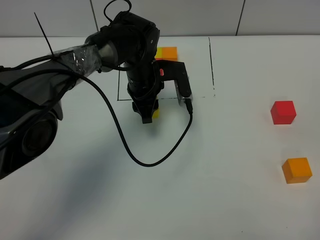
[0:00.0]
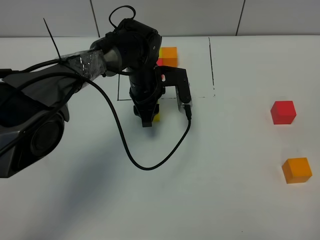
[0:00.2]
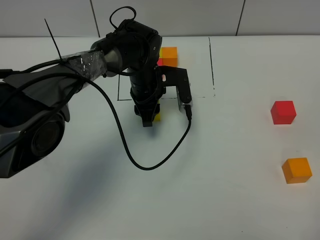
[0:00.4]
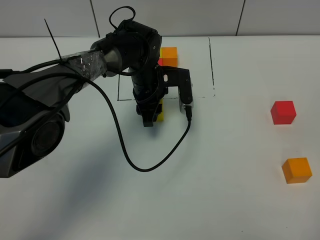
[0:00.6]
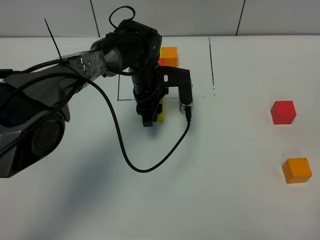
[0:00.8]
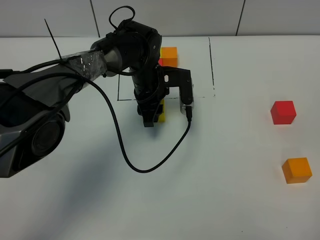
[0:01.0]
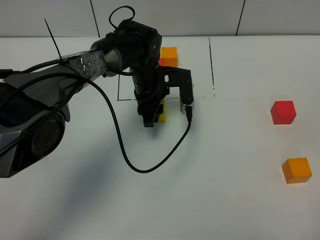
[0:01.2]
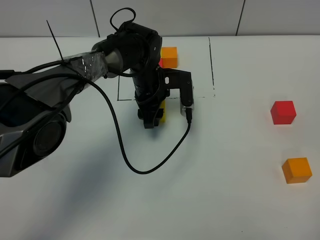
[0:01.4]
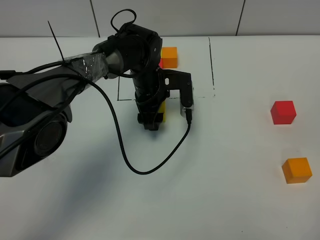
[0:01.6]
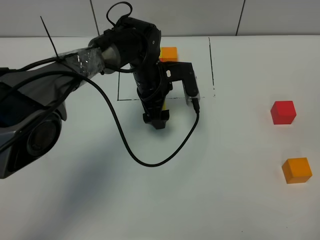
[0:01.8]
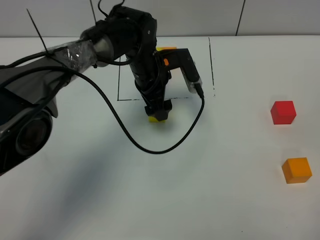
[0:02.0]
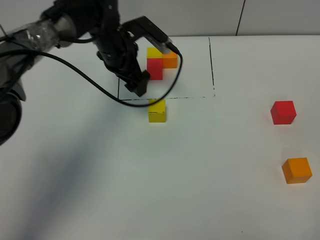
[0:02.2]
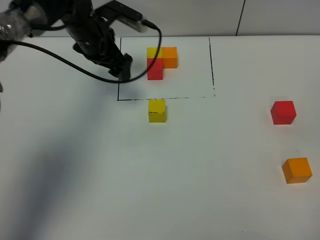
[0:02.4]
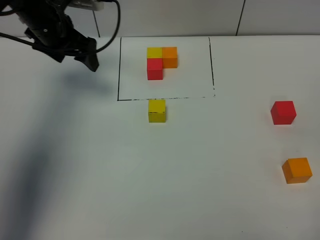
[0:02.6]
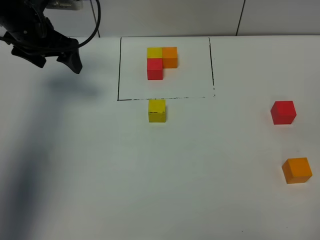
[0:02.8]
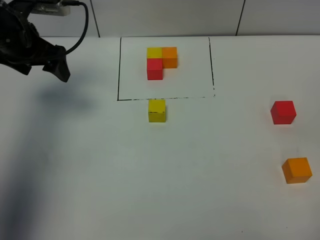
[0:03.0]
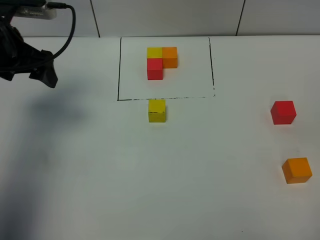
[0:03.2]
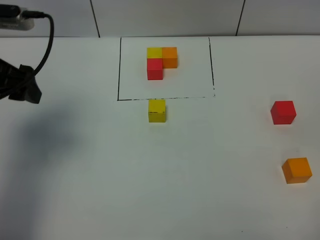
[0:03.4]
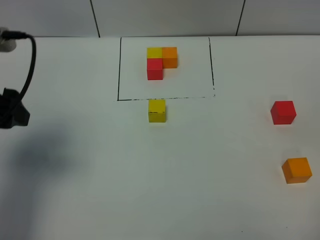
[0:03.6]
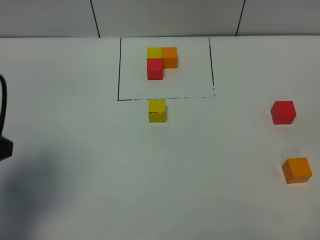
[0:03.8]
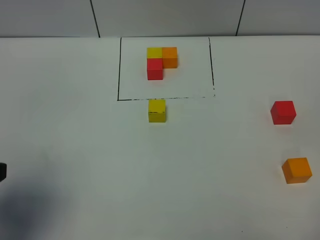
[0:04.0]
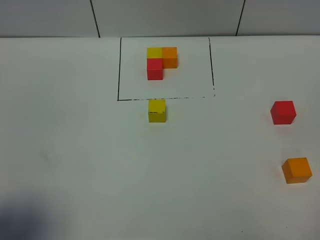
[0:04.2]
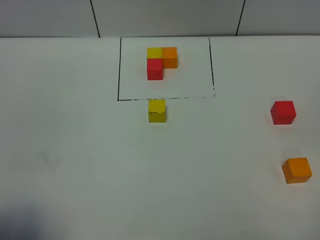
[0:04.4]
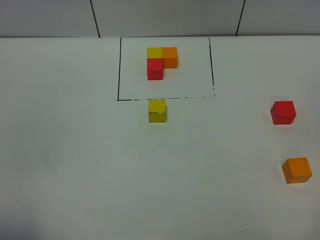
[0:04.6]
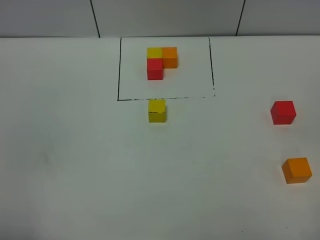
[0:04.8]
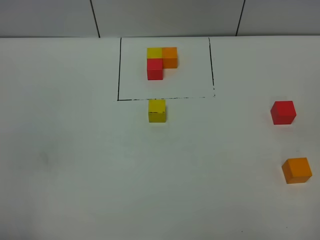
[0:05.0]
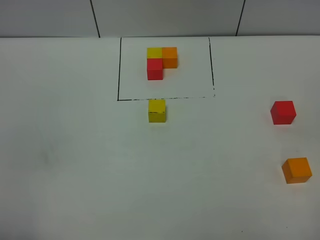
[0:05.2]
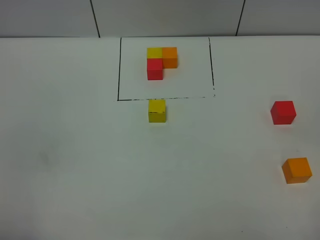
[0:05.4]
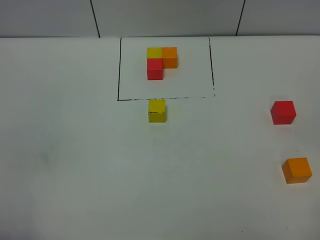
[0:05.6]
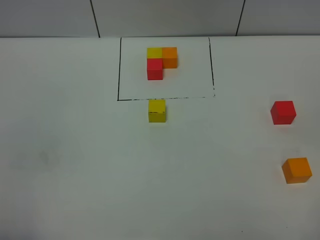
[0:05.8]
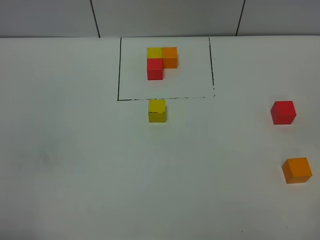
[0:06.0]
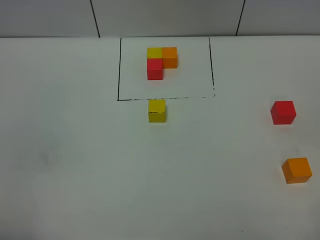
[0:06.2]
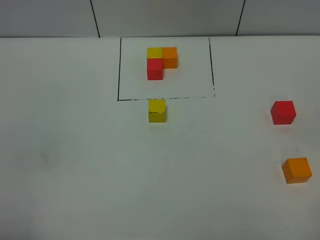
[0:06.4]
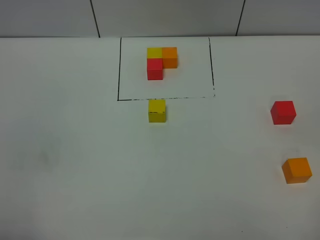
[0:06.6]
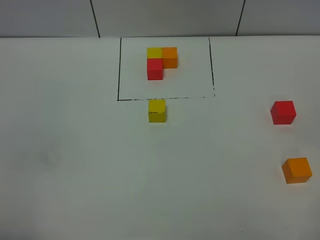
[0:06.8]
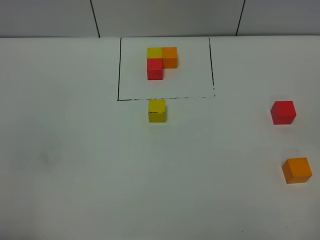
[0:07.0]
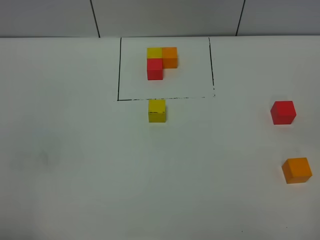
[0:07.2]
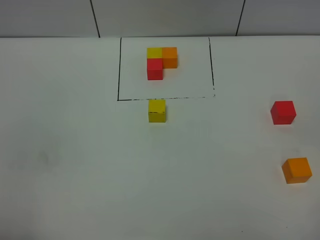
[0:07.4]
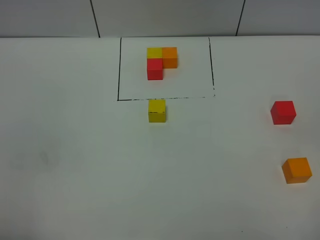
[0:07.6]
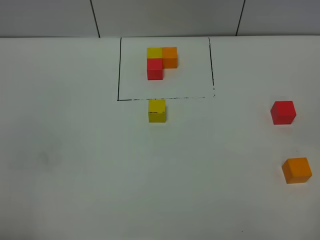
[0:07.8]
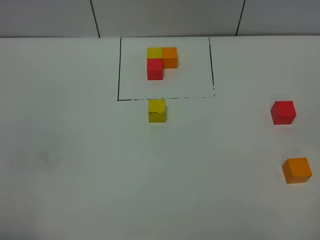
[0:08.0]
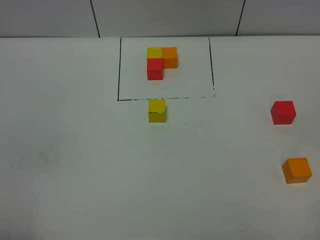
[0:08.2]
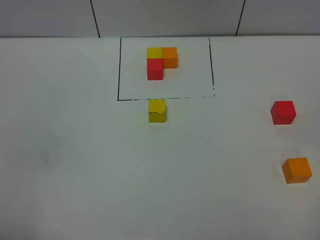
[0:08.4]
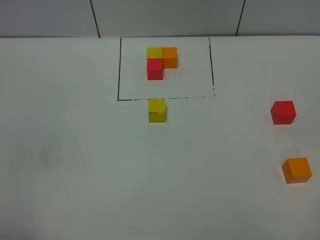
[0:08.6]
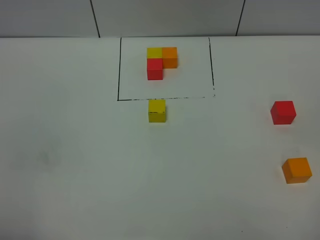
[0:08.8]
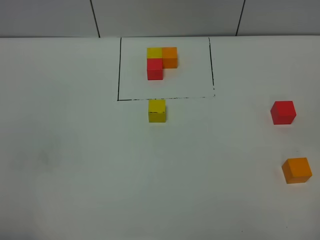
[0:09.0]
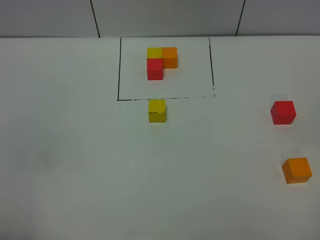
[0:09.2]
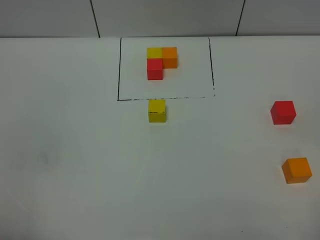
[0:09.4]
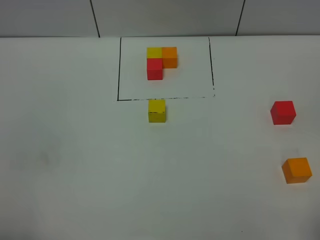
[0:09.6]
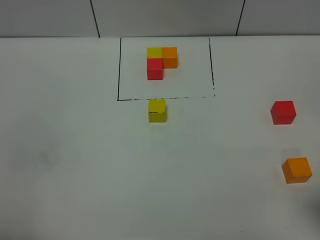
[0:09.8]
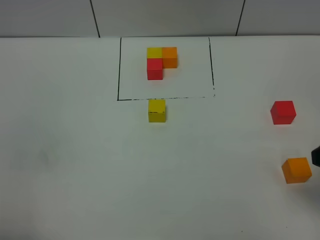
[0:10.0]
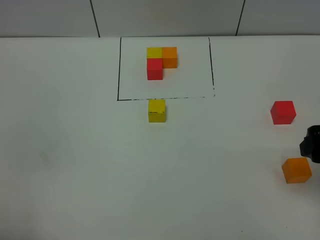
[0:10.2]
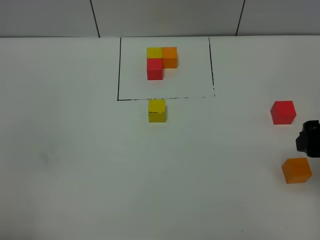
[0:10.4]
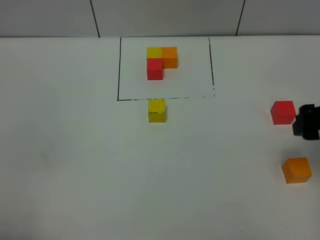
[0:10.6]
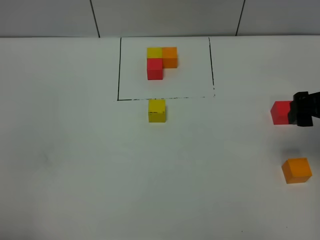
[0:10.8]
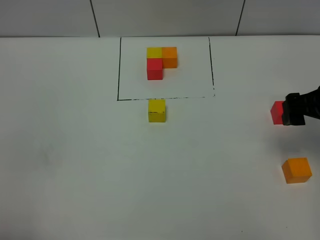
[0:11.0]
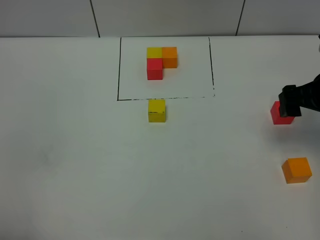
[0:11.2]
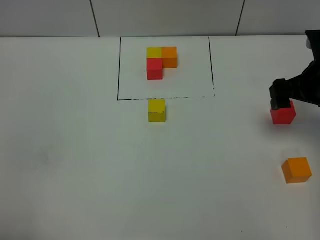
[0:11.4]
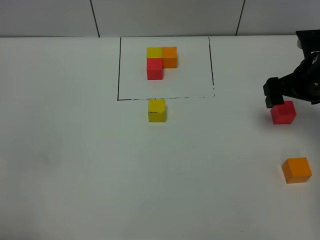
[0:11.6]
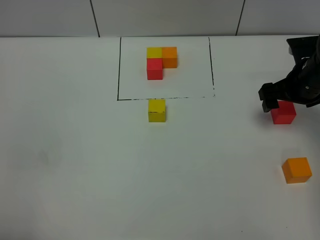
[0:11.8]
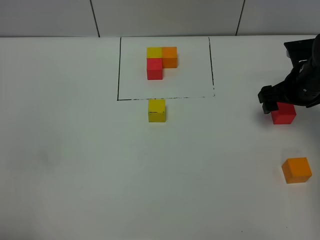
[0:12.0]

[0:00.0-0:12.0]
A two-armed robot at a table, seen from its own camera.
Task of the whole recording: According to the building block template in front, assemble the scattered blocks together.
0:00.0 to 0:01.6: The left gripper opens.
0:01.6 to 0:03.0: The left gripper is displaced to the left and upward by roughly 25 cm.
0:03.0 to 0:04.4: The left gripper heads backward, covering about 35 cm.
0:04.4 to 0:06.0: The left gripper moves backward, some 5 cm.
0:06.0 to 0:09.0: The two grippers keep their place.
0:09.0 to 0:10.4: The right gripper goes roughly 20 cm forward.
0:10.4 to 0:12.0: The right gripper travels forward and downward by approximately 20 cm.

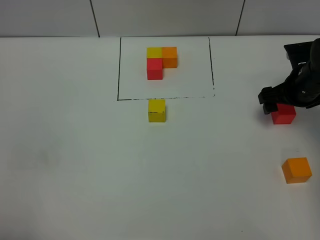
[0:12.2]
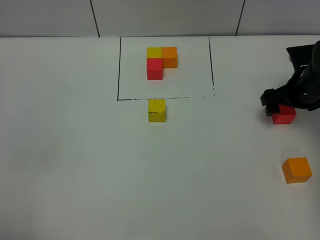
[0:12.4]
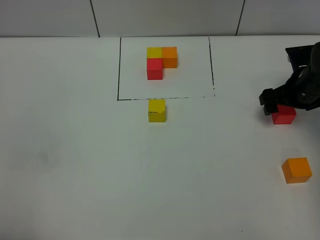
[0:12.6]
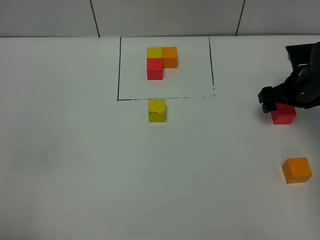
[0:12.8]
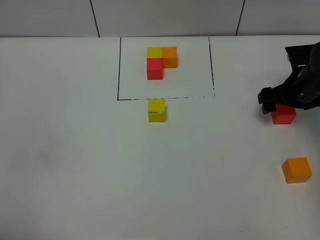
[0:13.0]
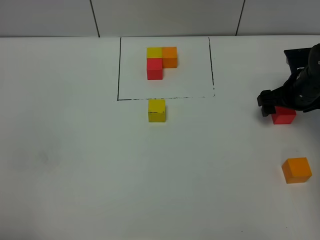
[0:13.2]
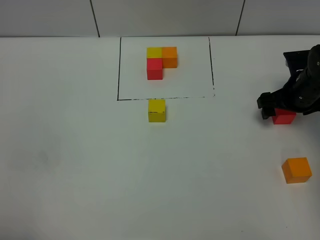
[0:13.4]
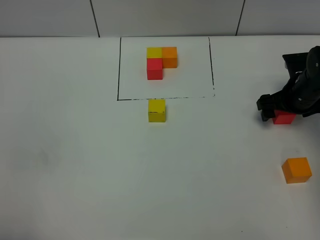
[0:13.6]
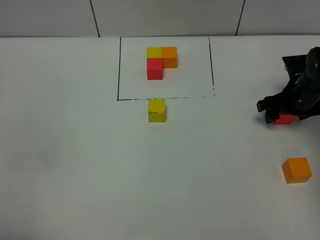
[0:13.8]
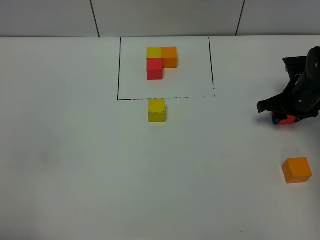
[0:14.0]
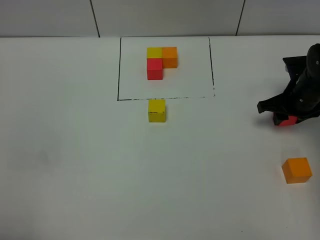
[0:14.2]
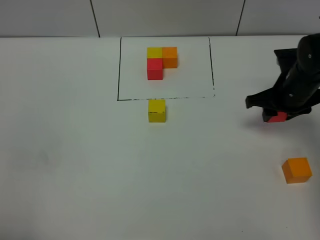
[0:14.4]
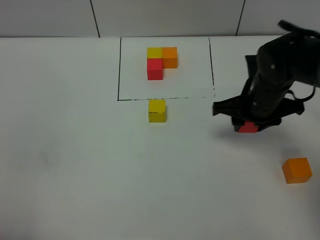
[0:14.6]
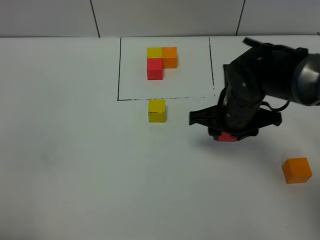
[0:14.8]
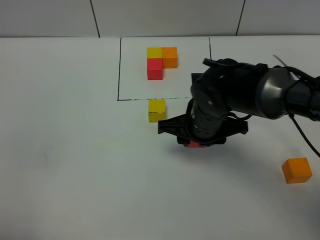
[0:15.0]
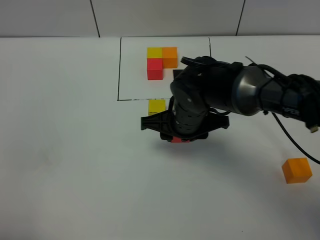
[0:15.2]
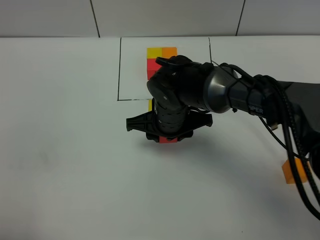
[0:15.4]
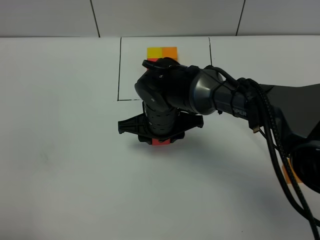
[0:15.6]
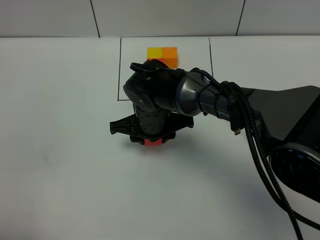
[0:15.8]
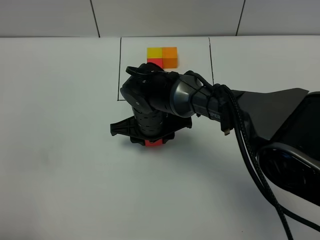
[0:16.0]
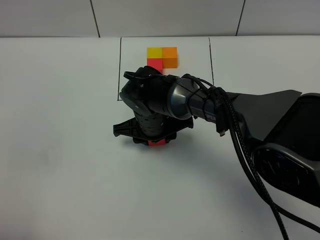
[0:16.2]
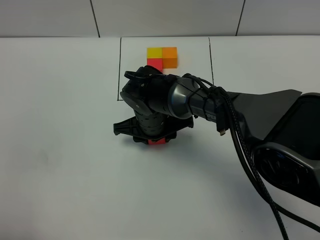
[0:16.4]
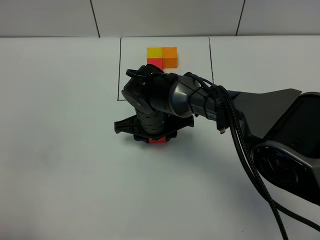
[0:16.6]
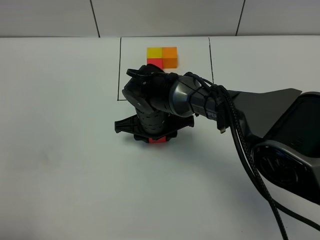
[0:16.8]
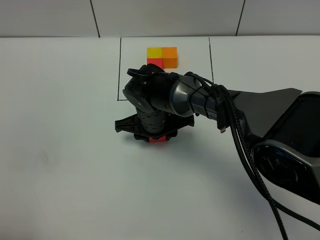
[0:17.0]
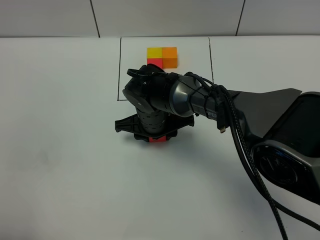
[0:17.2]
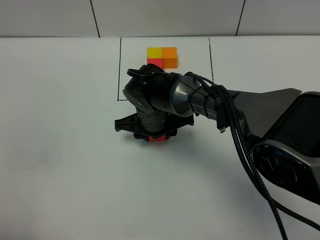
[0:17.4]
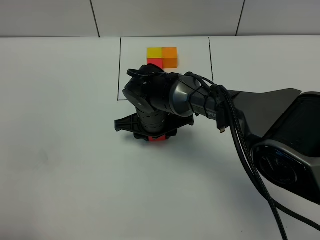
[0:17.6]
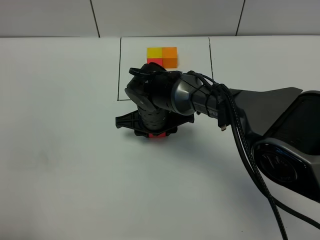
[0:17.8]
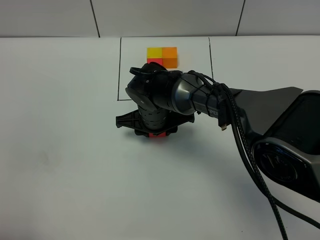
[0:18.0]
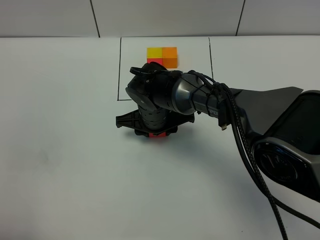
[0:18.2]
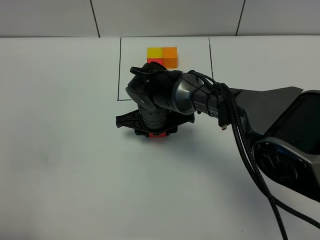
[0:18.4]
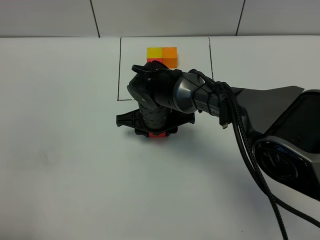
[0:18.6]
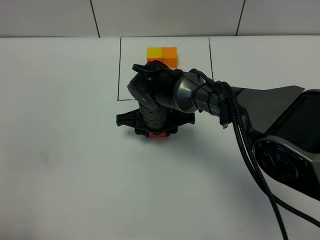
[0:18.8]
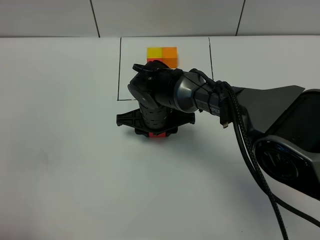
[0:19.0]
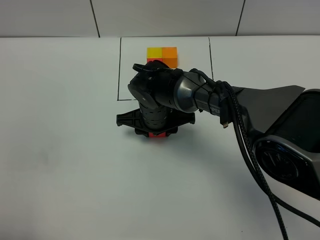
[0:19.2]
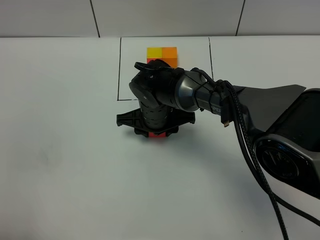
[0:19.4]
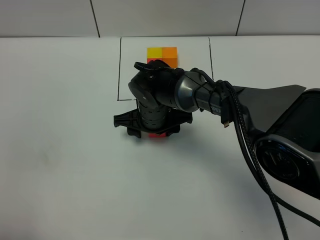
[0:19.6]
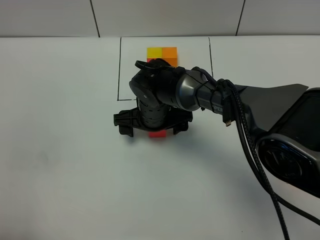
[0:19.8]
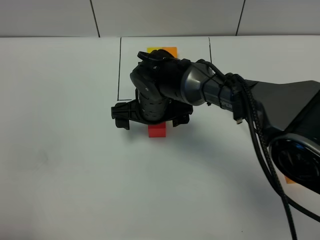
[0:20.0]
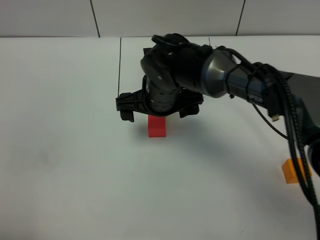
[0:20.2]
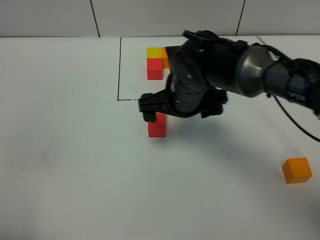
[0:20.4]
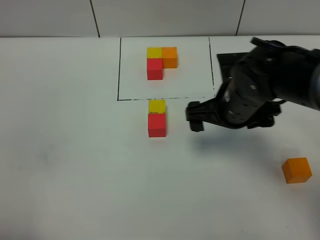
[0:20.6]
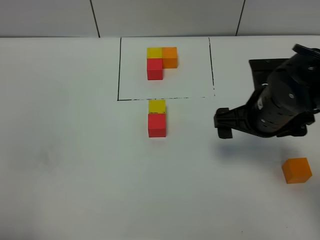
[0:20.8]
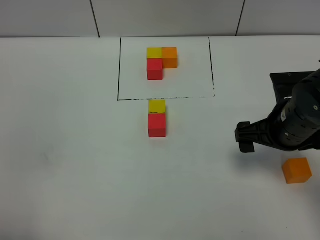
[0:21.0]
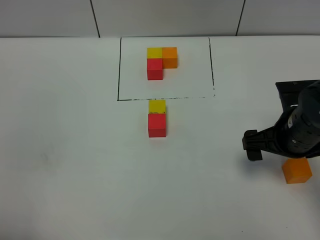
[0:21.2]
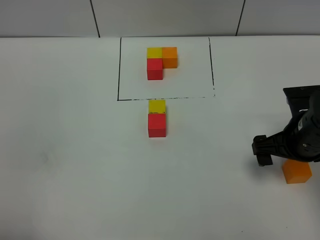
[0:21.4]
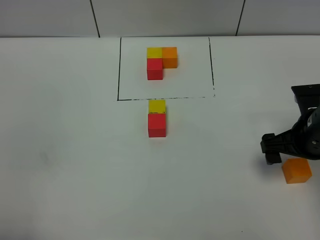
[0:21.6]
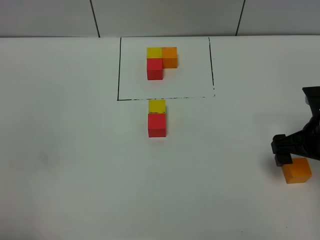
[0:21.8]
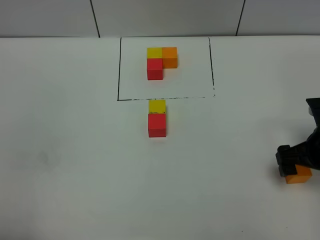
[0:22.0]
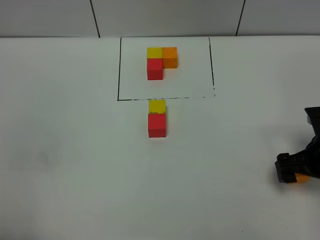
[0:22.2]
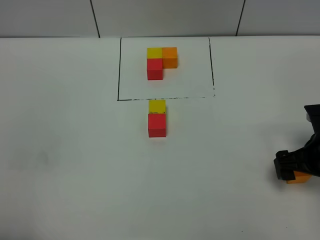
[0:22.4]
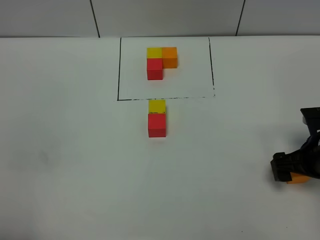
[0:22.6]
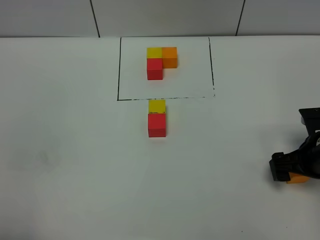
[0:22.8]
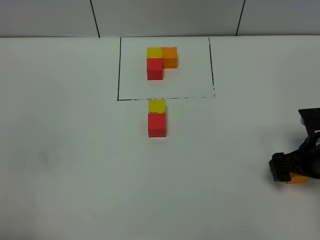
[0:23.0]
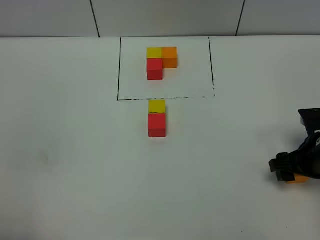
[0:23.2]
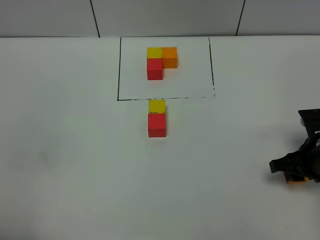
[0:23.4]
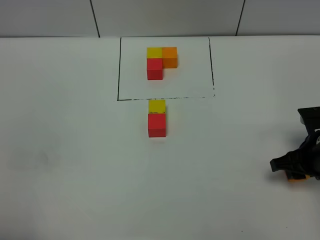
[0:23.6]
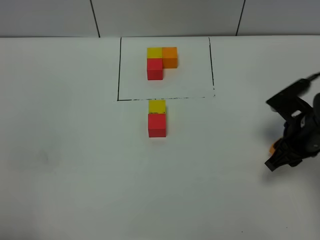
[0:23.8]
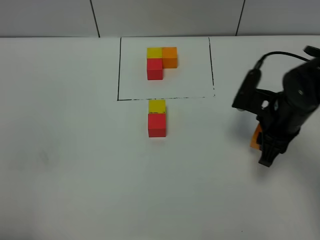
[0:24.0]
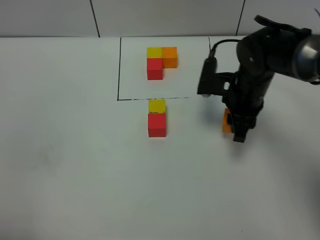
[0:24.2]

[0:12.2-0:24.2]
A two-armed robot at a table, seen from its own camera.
Task of the whole recording: According to the building block template in front, assemble the scattered blocks together.
Step, 0:12.2 to 0:19.6: Put the red build block on the behind of the yellow build block.
0:12.2 to 0:13.8: The right gripper closes up.
0:13.8 to 0:15.2: The right gripper goes approximately 25 cm to the left, and closes its fingers.
0:15.2 to 0:16.6: The right gripper is displaced to the left and downward by about 10 cm.
0:16.6 to 0:18.2: Both grippers stay put.
0:18.2 to 0:19.8: The right gripper opens.
0:19.8 to 0:21.2: The right gripper travels to the right and backward by roughly 25 cm.
0:21.2 to 0:22.6: The right gripper travels to the right and downward by some 10 cm.
0:22.6 to 0:24.2: The right gripper is displaced forward and to the left by some 20 cm, and closes.
